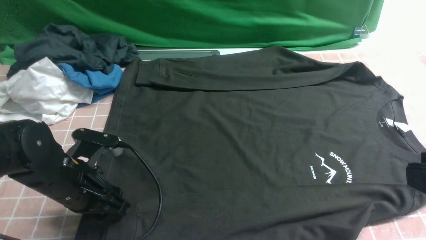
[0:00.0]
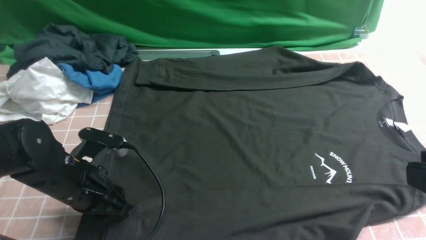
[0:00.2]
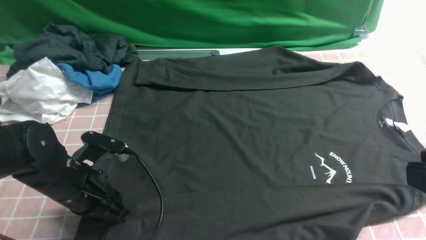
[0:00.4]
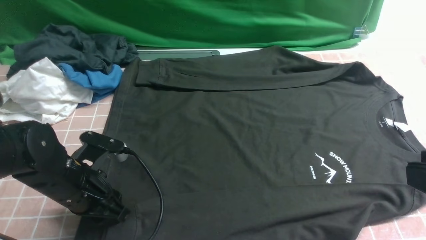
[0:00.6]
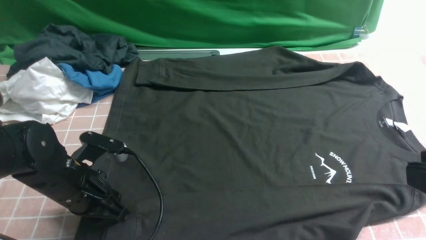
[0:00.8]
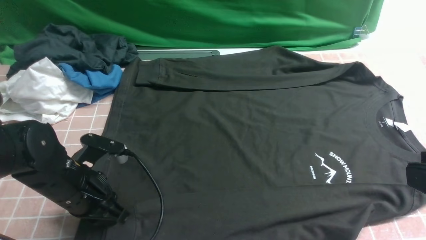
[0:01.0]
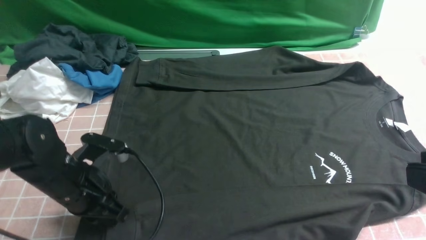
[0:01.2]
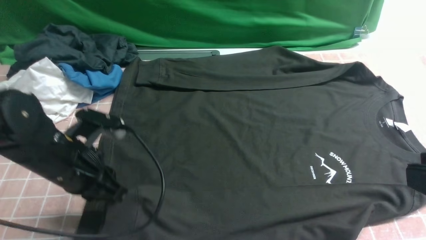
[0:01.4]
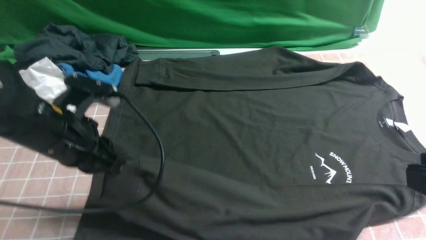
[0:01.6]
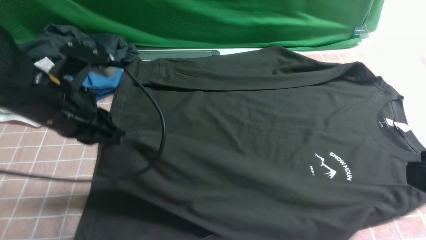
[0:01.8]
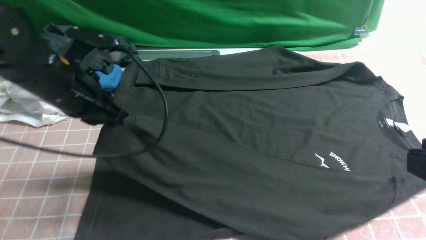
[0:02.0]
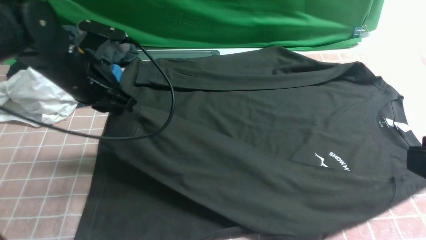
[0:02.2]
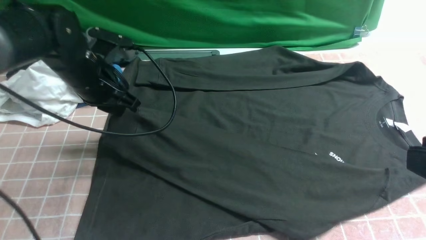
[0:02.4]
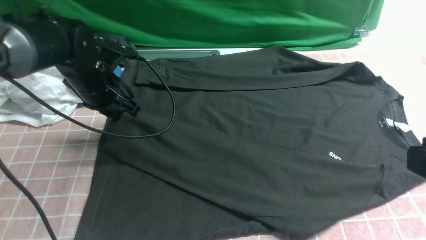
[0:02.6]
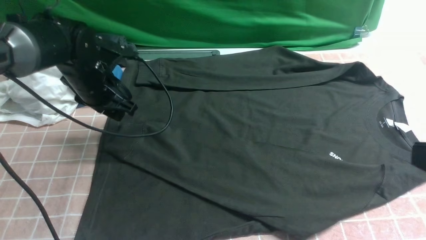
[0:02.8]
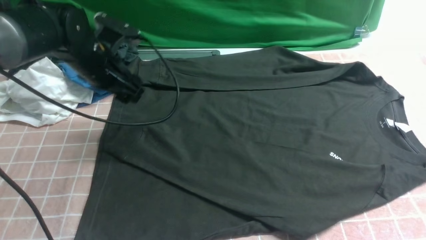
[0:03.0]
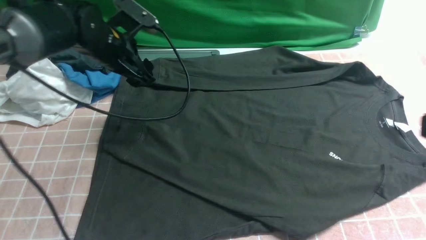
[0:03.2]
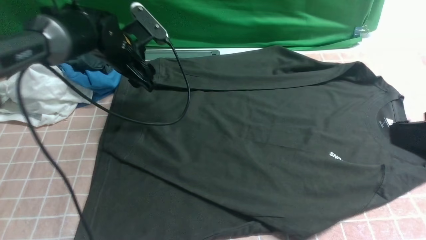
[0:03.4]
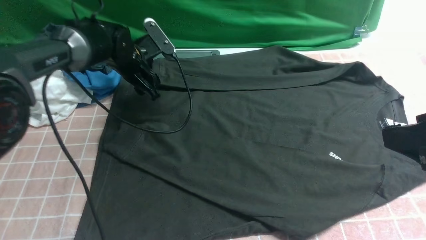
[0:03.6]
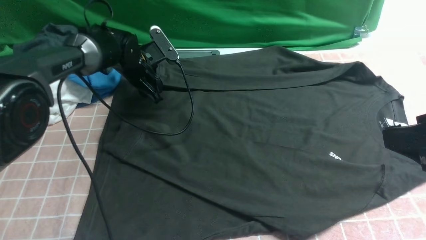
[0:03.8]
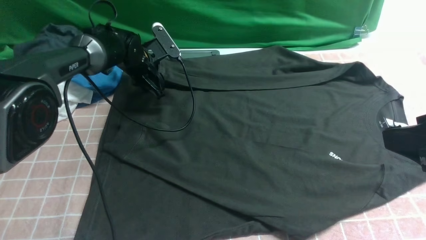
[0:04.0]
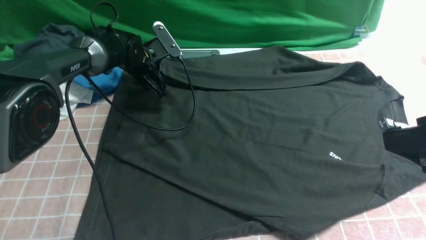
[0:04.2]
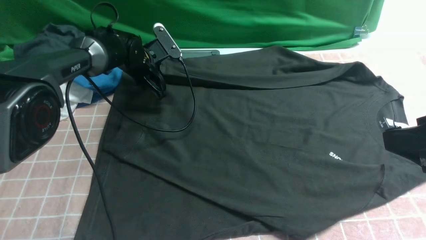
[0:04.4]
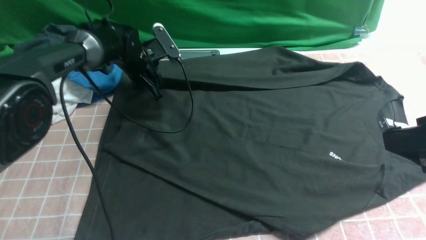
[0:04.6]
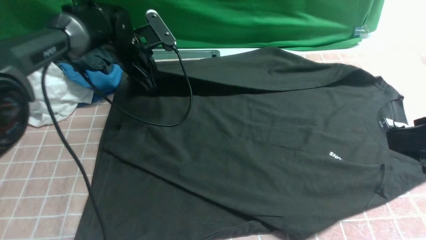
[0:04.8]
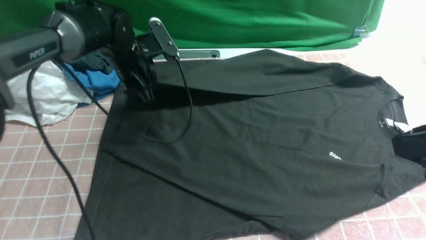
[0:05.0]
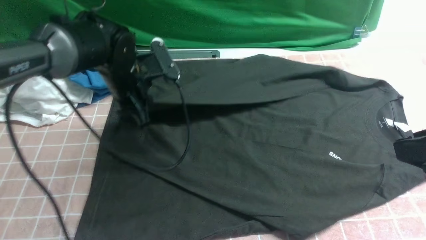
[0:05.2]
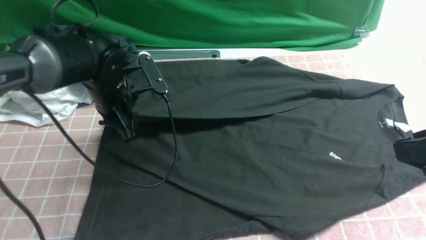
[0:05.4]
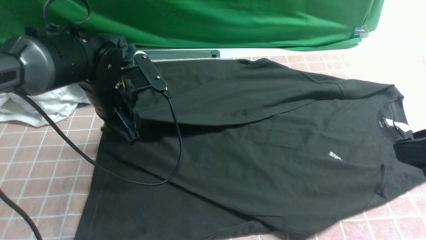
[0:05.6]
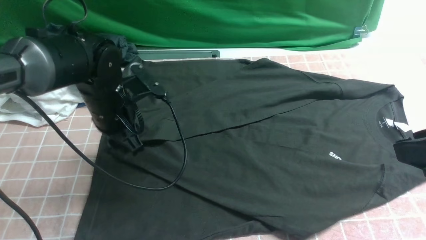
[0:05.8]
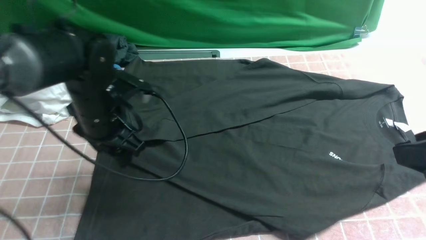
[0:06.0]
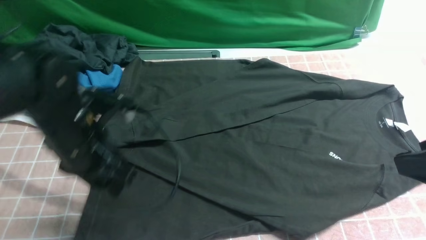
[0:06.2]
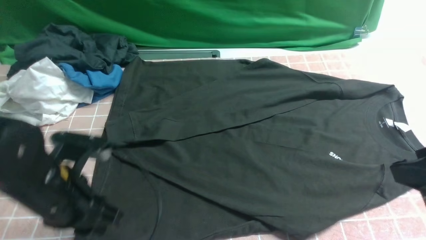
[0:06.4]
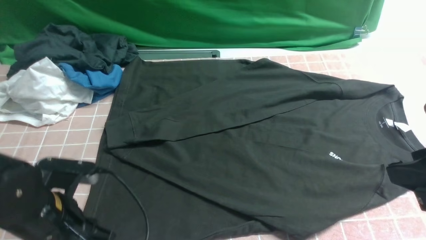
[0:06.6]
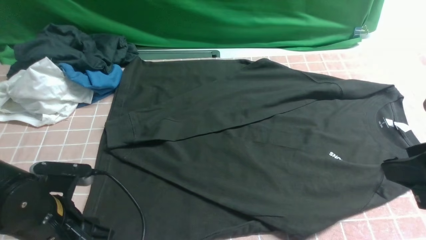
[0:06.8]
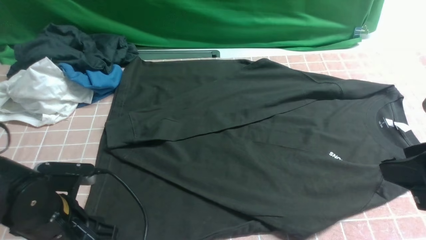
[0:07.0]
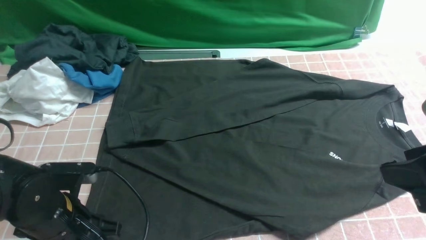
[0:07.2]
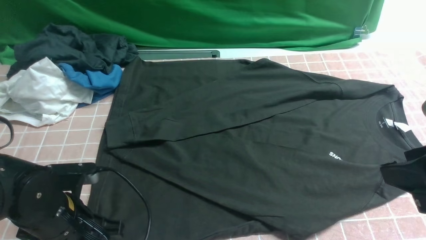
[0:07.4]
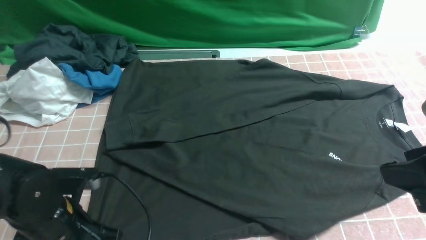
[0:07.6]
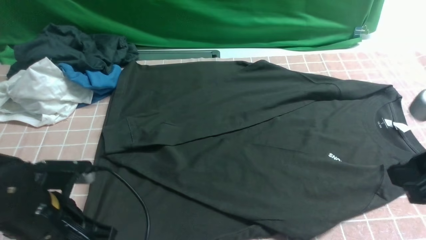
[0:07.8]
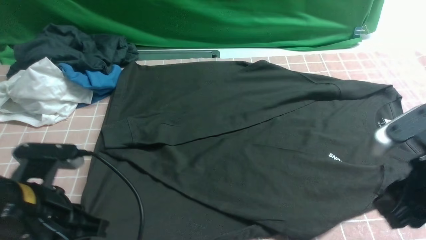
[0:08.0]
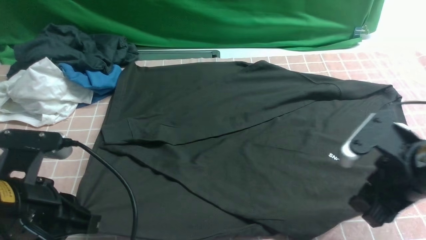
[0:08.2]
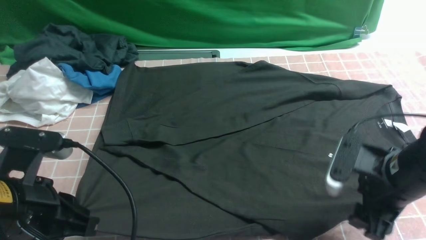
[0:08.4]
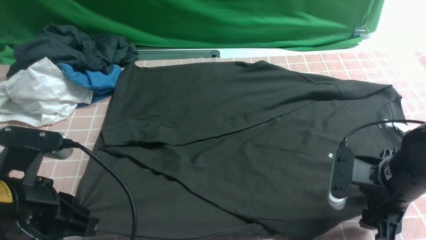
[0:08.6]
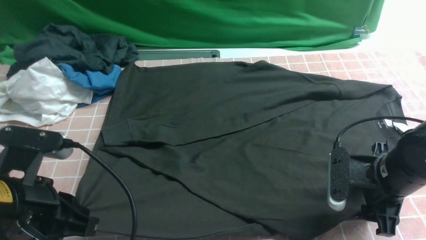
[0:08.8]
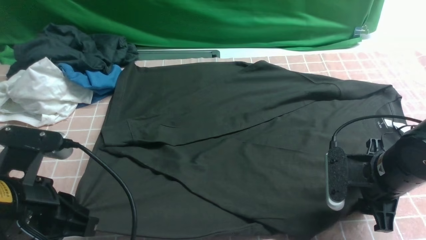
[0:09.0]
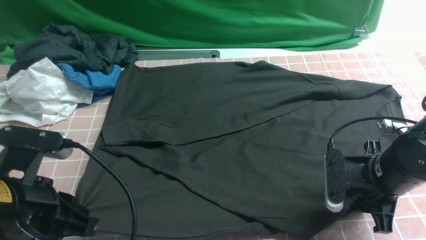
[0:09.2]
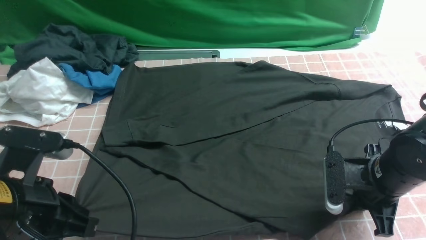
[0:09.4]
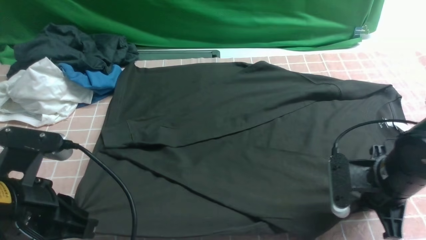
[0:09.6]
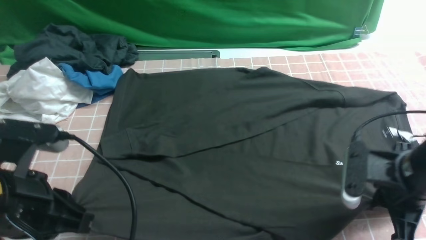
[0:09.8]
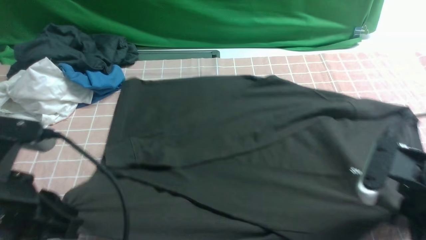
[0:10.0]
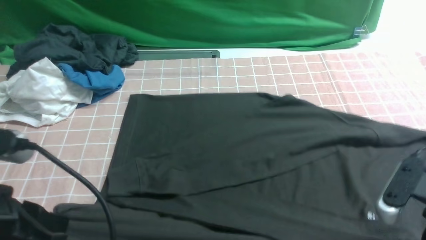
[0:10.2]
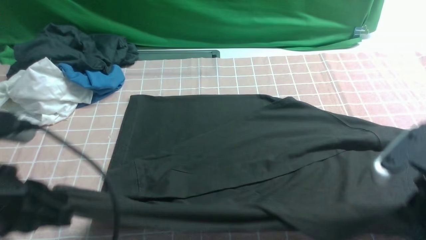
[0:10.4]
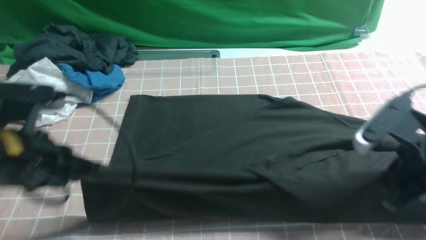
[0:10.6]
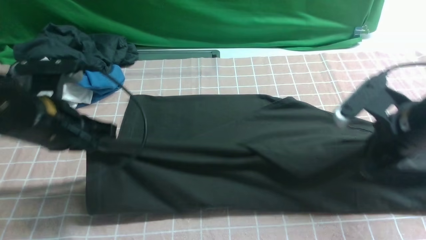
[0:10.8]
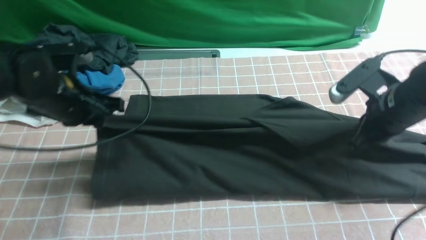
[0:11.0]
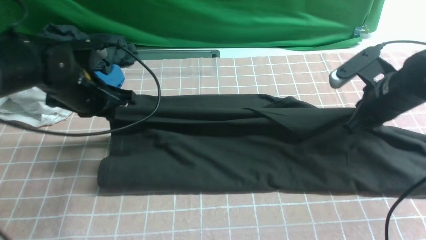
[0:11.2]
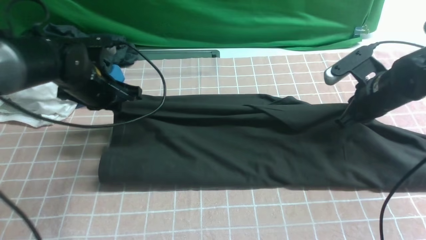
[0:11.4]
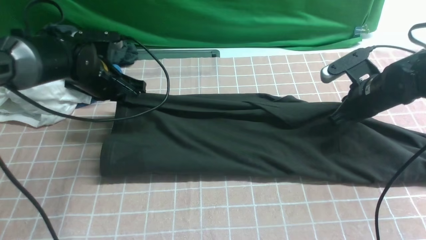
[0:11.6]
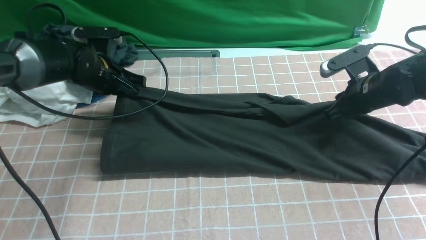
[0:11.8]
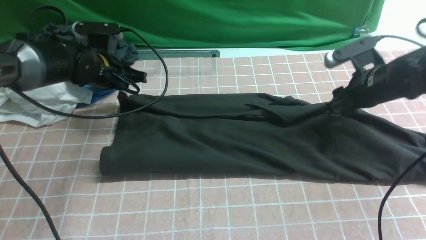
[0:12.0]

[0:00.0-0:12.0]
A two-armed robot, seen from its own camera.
Step, 0:01.4 to 0:02.8: use the left arm to drag and place the cuff at the centered position on the left edge of the fabric.
Step, 0:03.0 to 0:04.6: use the left arm to clamp the cuff farthest from it.
Step, 0:04.8 to 0:05.8: use the left arm to drag and drop the cuff onto the cuff closest to the left arm.
Step, 0:06.0 to 0:09.8: use both arms simultaneously to clamp the lower edge of the clothing fabric.
0:00.0 to 0:01.6: The left gripper shifts about 10 cm upward, and closes up.
0:01.6 to 0:03.0: The left gripper heads forward, covering some 15 cm, and opens.
0:03.0 to 0:04.4: The left gripper heads forward and downward, covering some 15 cm, and closes up. The right gripper opens its fingers.
0:04.4 to 0:06.0: The left gripper travels backward by roughly 20 cm, and opens up.
0:06.0 to 0:07.6: The left gripper goes some 15 cm backward and downward, and closes.
0:07.6 to 0:09.0: The left gripper travels upward by about 10 cm, while the right gripper travels downward and forward by roughly 20 cm.
0:09.0 to 0:10.4: The right gripper is displaced upward and backward by approximately 10 cm, and closes.
0:10.4 to 0:12.0: The two grippers go about 25 cm forward. The right gripper opens its fingers; the left gripper opens up.

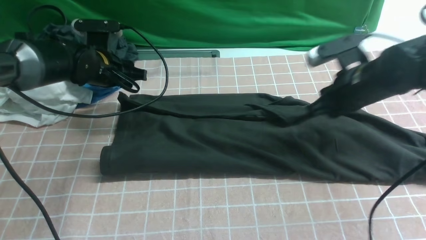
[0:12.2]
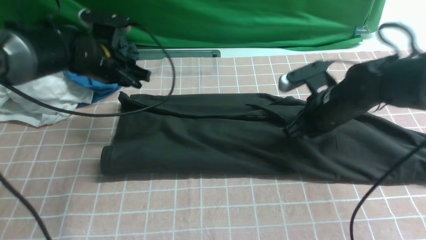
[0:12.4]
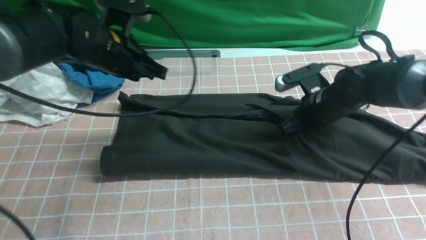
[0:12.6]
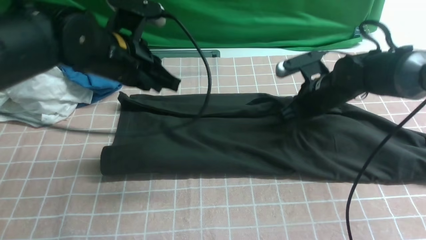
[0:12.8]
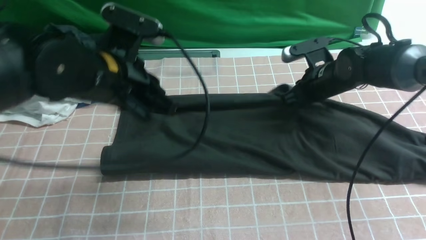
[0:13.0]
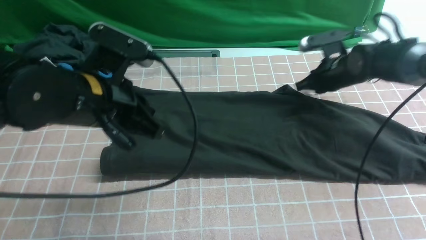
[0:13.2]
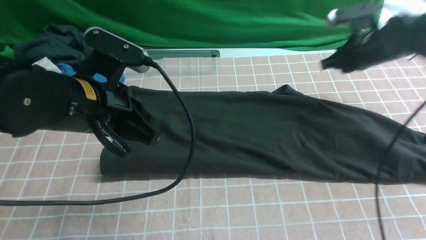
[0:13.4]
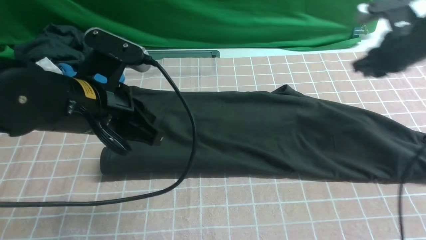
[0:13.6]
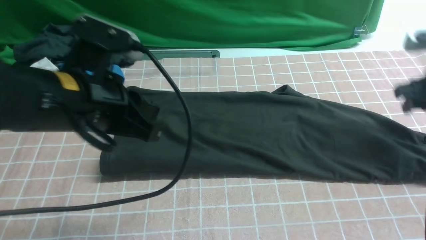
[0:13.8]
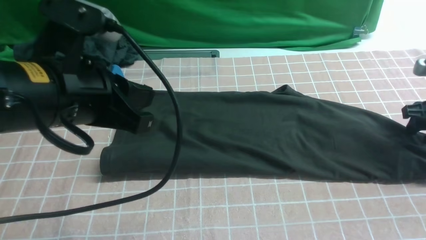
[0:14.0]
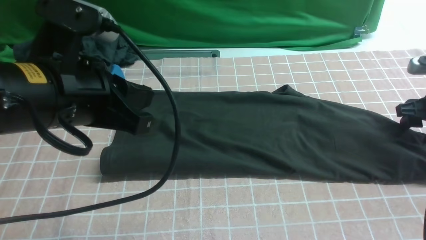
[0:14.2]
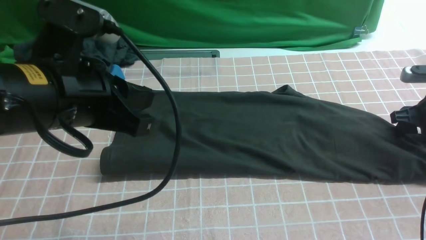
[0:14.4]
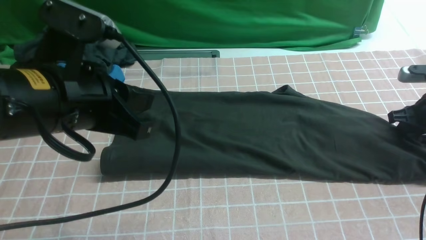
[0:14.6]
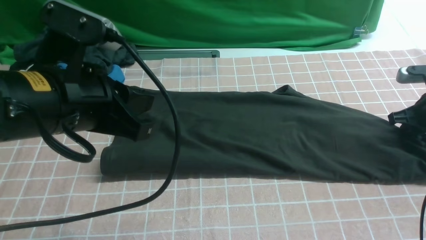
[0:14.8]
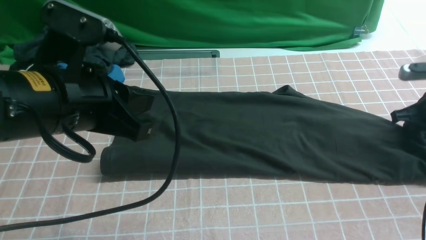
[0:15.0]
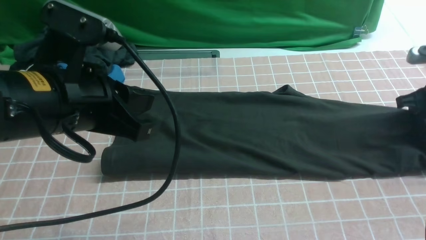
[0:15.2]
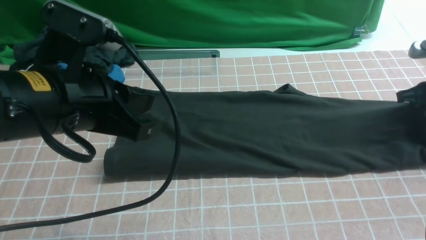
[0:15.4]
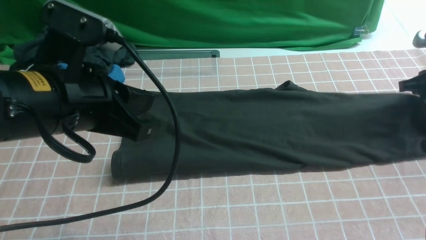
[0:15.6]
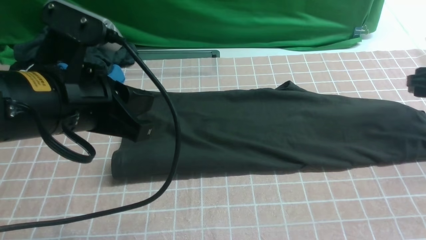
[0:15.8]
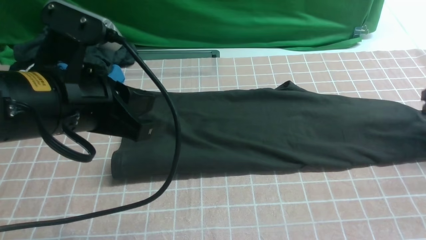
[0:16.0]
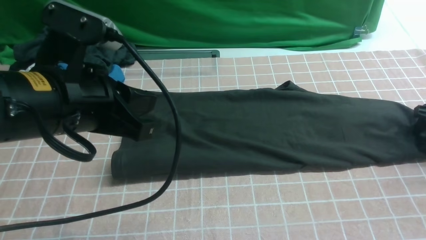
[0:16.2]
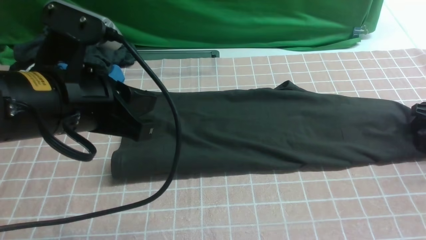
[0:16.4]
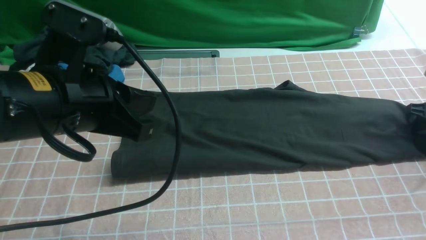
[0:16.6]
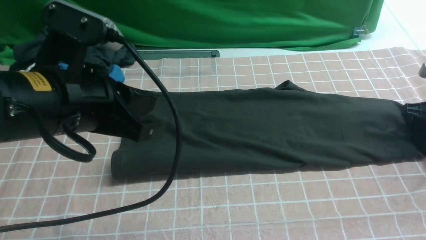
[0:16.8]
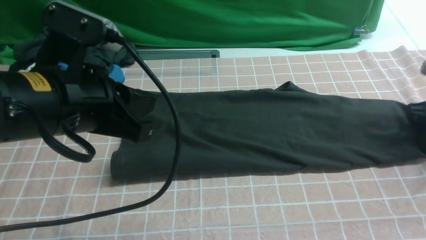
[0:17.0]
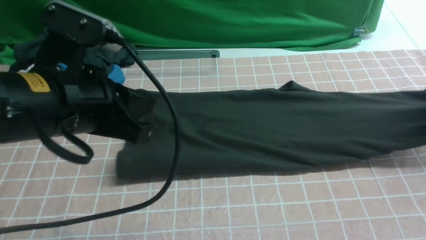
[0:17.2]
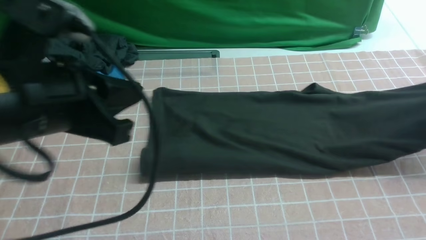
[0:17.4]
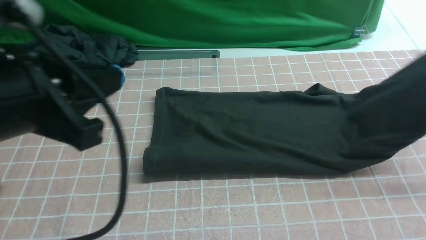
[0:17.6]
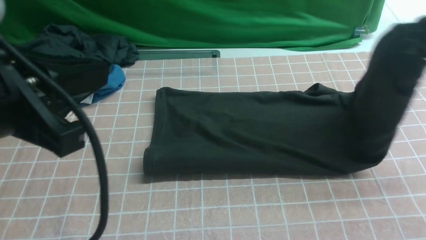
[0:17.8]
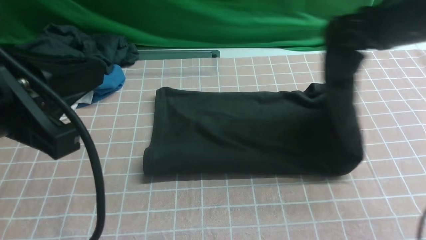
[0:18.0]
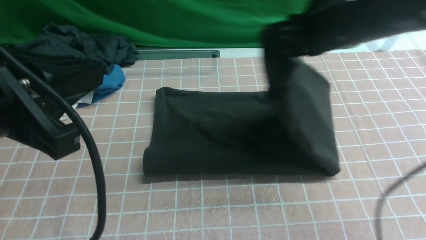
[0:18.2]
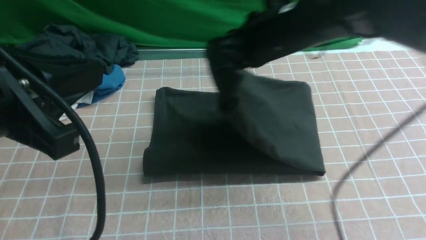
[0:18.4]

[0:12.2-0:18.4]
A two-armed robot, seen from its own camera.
Step, 0:13.4 to 0:17.0: use the right arm to clamp the right edge of the fabric.
0:12.2 to 0:13.8: The left gripper moves backward and upward, about 25 cm, and closes up; the right gripper shifts roughly 15 cm to the right, and closes, then opens again.
0:13.8 to 0:15.4: The right gripper closes.
0:15.4 to 0:16.8: The right gripper moves roughly 5 cm, and opens, then closes again.
0:16.8 to 0:18.4: The left gripper travels backward and upward by approximately 10 cm, while the right gripper heads to the left and upward, covering roughly 40 cm.
